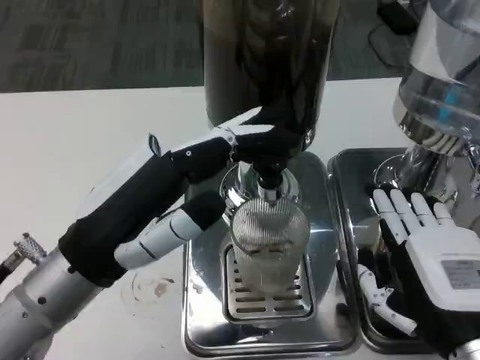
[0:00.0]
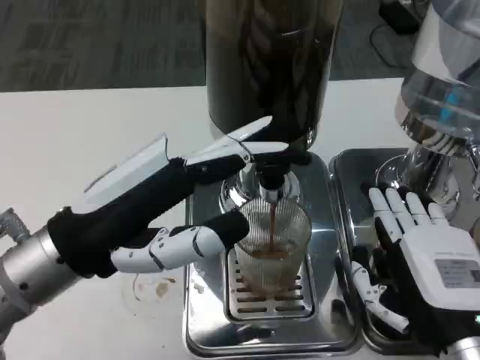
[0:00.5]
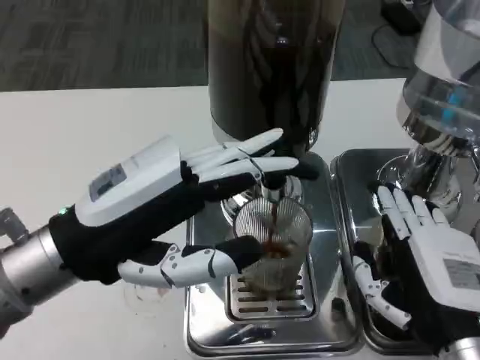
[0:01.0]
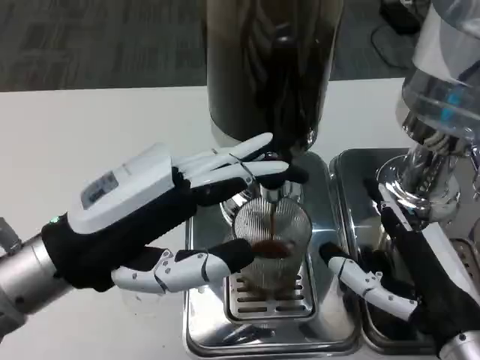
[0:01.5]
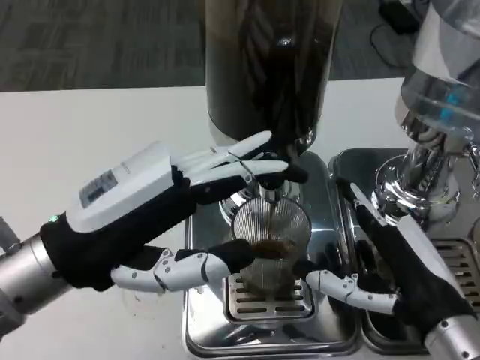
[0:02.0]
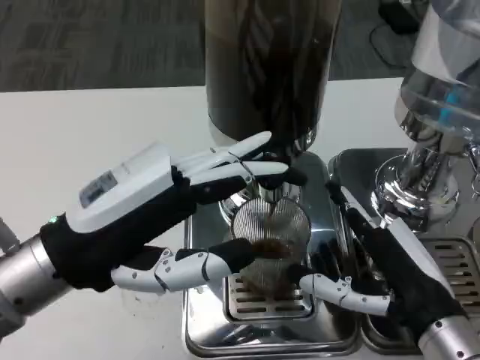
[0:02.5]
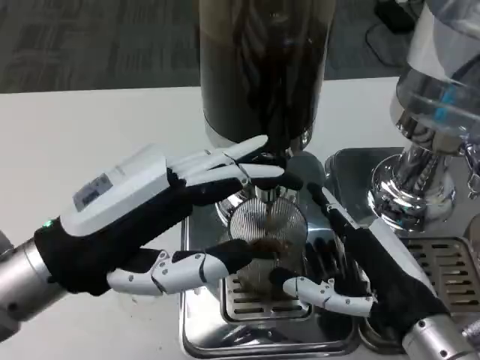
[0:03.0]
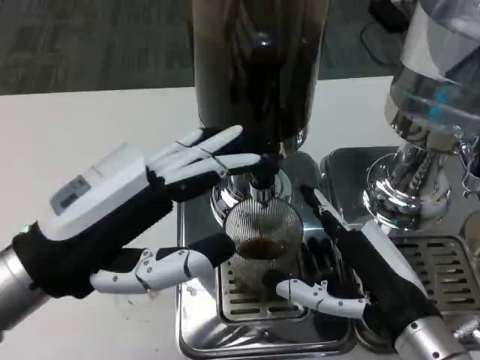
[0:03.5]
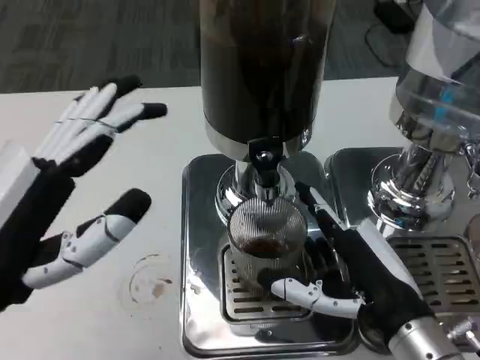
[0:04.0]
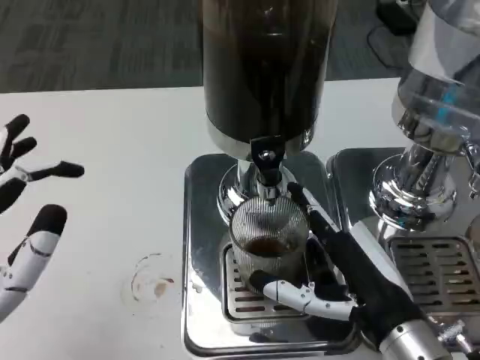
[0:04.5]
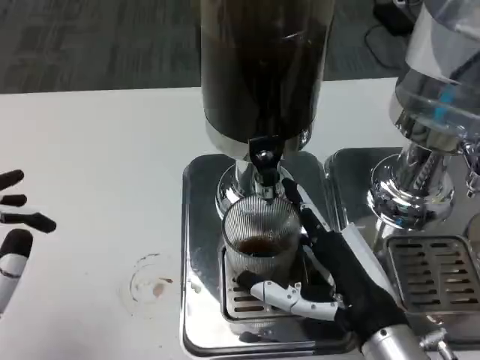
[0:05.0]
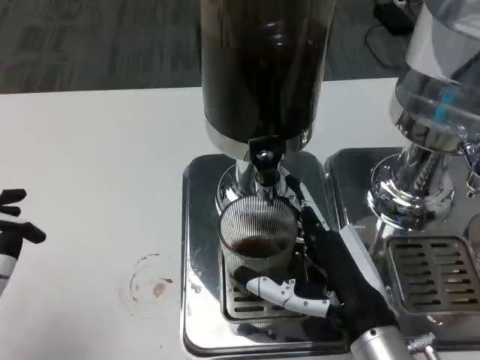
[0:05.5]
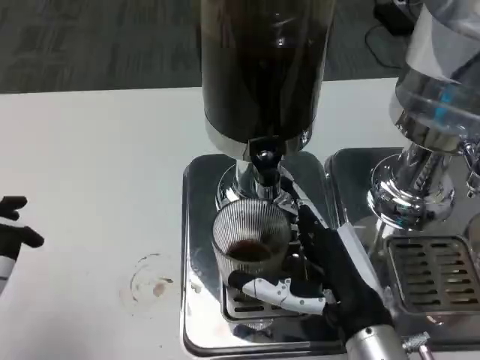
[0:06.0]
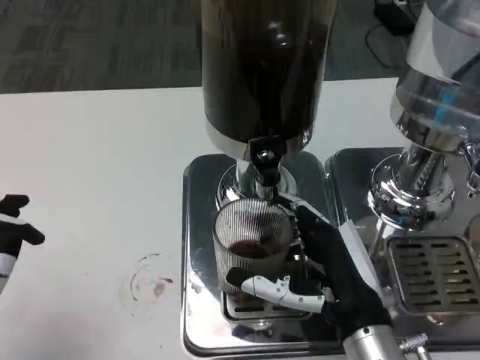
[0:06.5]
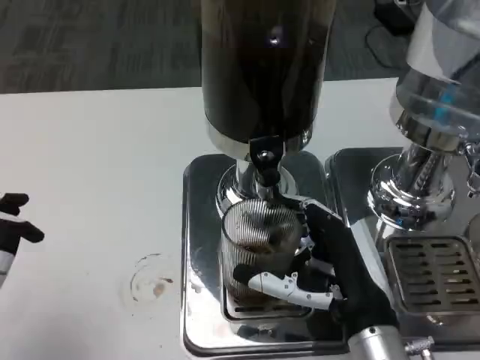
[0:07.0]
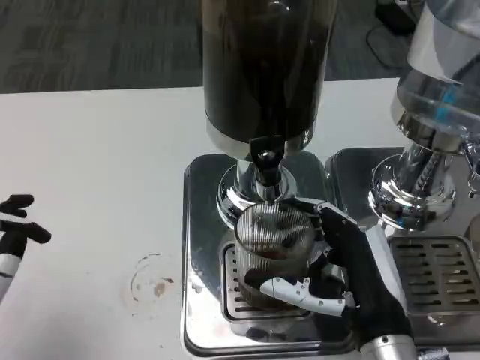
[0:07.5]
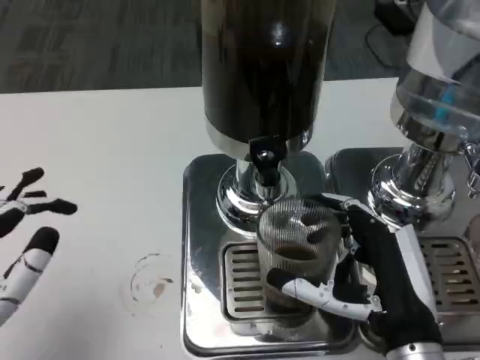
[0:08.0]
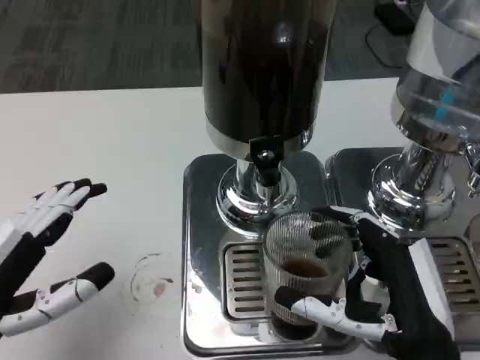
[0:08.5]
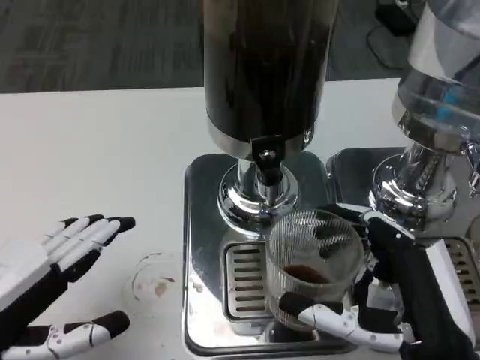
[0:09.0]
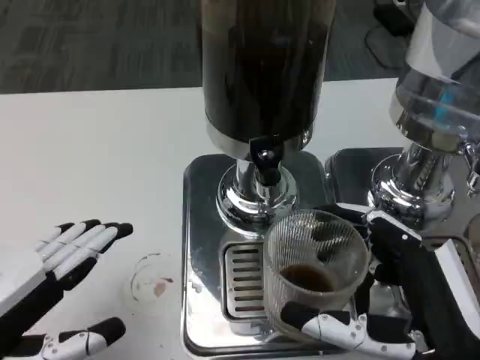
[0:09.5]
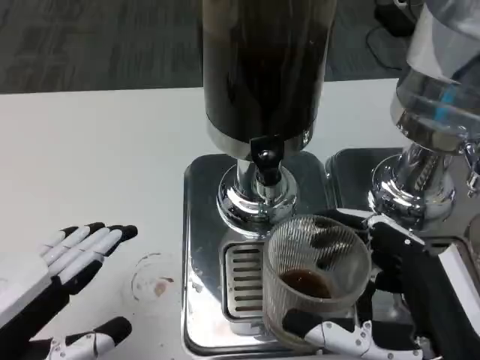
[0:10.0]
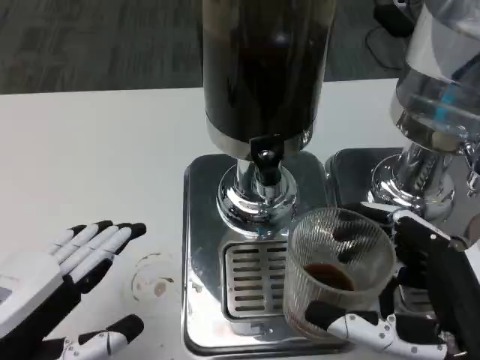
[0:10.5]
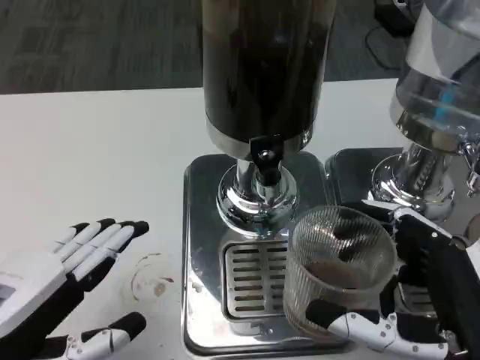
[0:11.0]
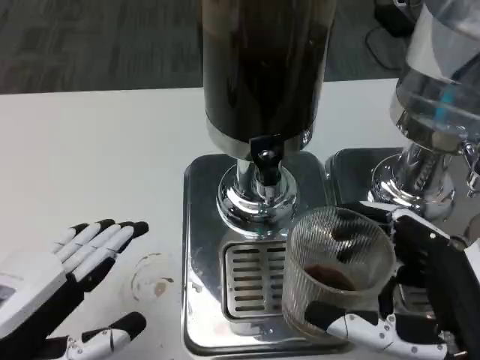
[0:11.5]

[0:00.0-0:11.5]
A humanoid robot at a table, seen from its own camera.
Task of the whole recording: Grasp the cup under the faucet to collect the drink, then remove the cup.
0:02.0 to 0:04.0: The left hand moves backward, about 5 cm.
0:04.0 to 0:06.0: The right hand ends up roughly 5 cm from where it was; the left hand travels downward and backward by some 10 cm.
0:06.0 to 0:07.5: There are only small adjustments of the hands.
0:07.5 to 0:09.5: The left hand changes place by some 5 cm, while the right hand travels backward and upward by some 10 cm.
0:09.5 to 0:11.5: There are only small adjustments of the hands.

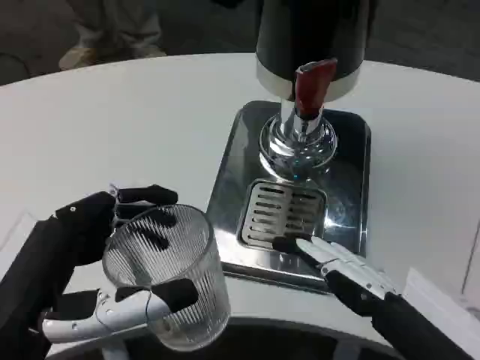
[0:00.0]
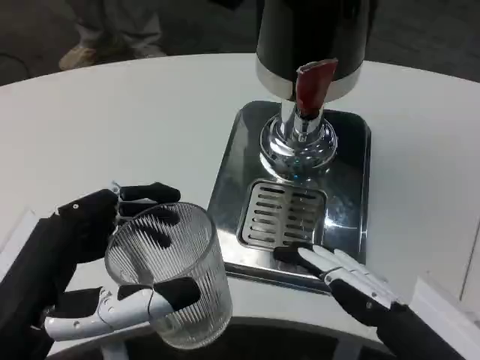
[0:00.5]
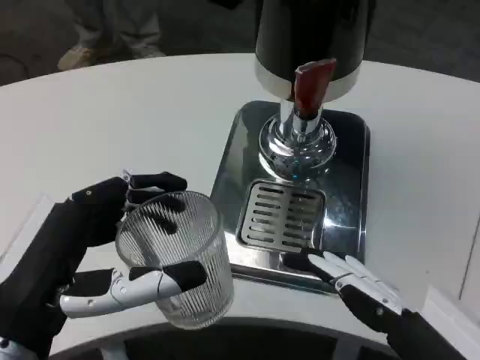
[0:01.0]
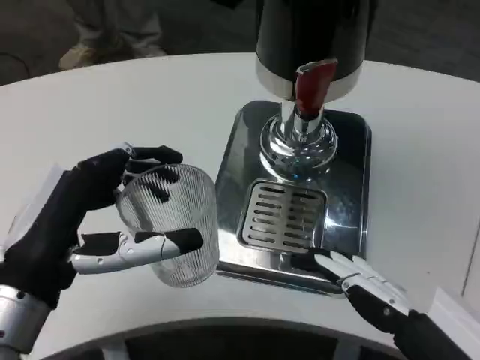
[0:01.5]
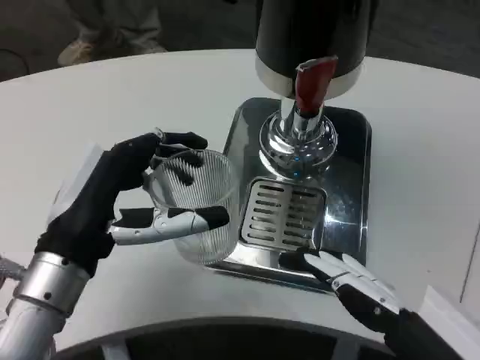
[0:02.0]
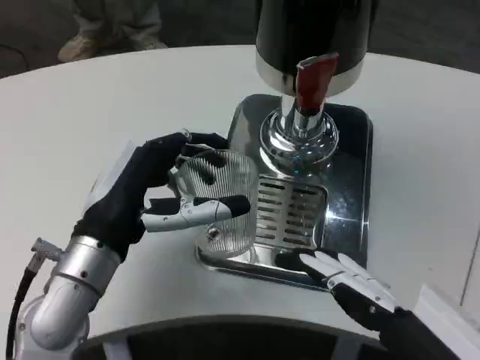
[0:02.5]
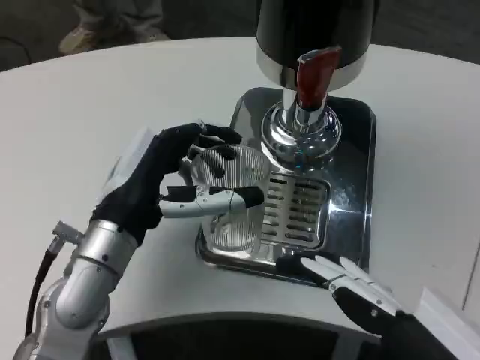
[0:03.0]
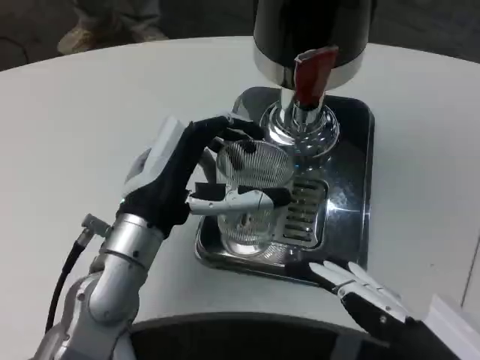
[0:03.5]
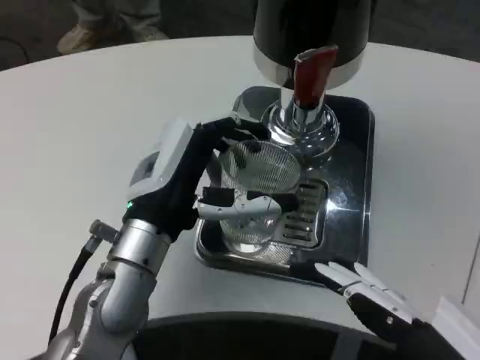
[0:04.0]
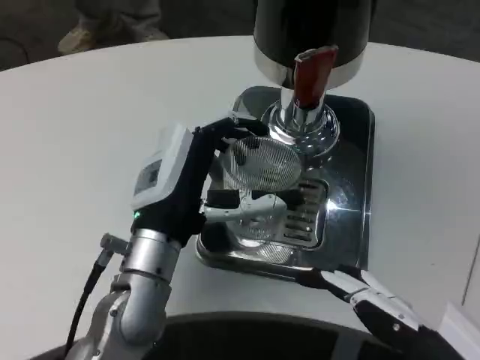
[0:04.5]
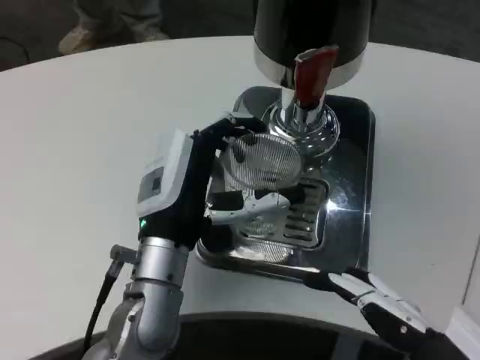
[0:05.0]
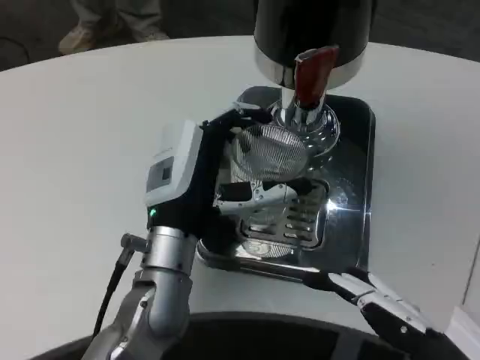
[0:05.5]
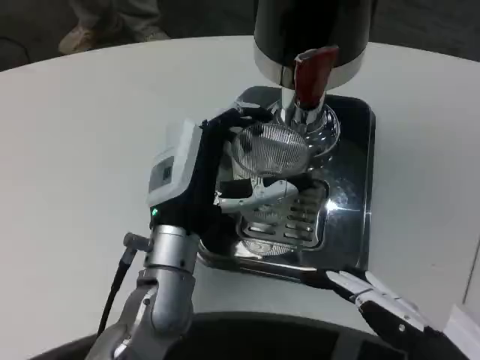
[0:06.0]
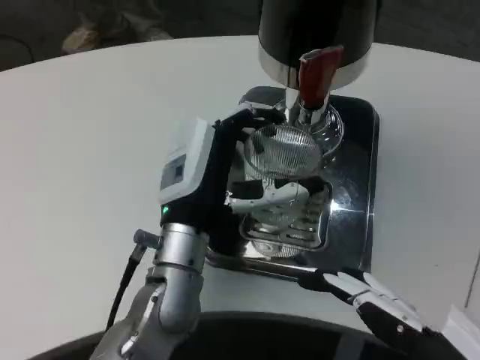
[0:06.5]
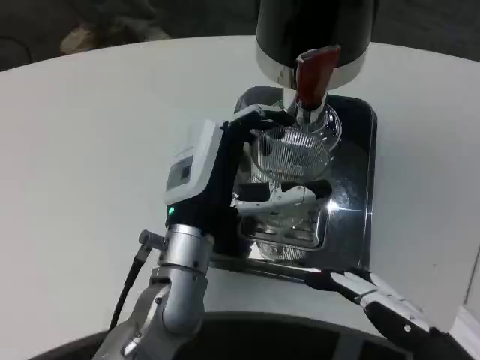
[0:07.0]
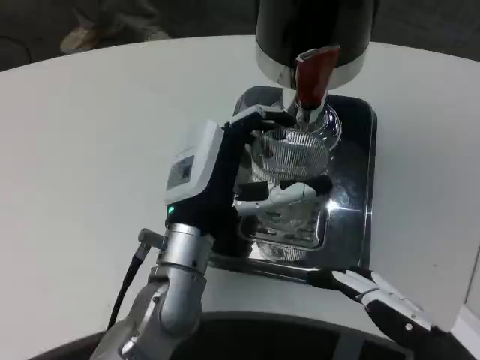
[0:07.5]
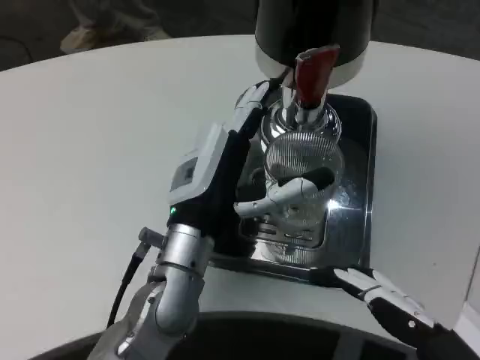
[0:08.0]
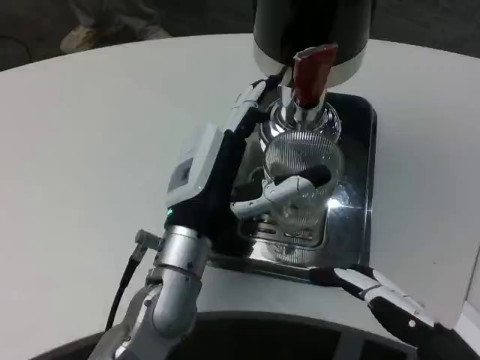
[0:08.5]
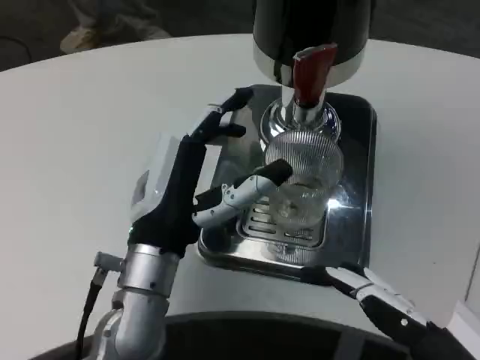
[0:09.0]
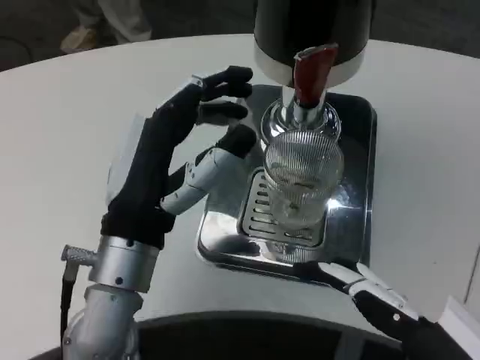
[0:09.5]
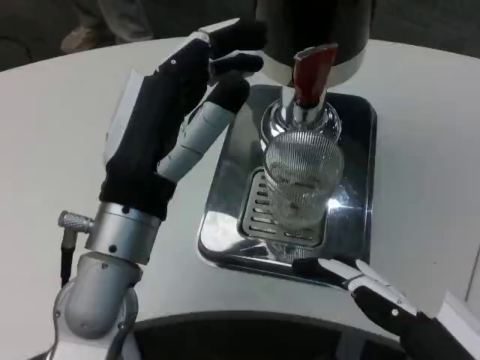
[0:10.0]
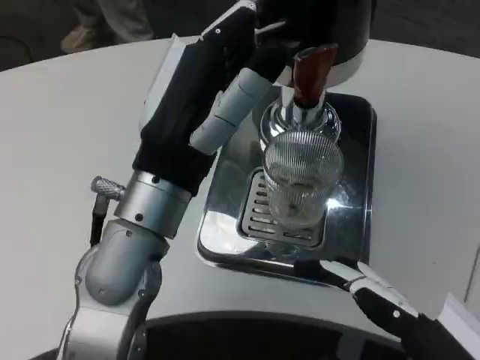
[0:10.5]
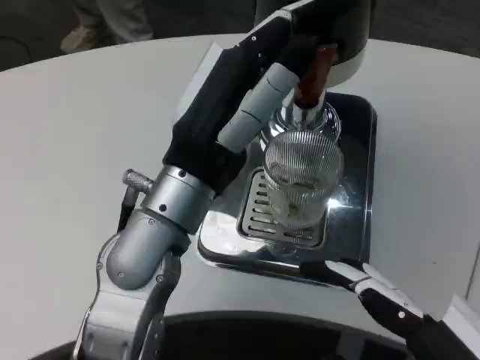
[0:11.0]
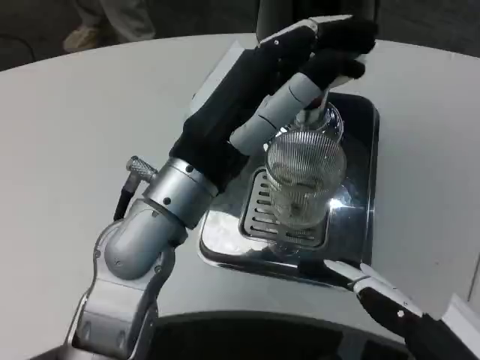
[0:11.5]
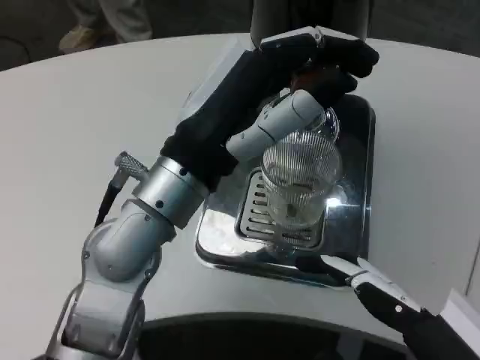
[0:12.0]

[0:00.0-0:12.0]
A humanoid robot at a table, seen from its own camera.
Task of the whole recording: Grasp the cup under the faucet to collect the drink, then remove the cup.
0:00.0 to 0:02.0: The left hand shifts roughly 10 cm forward.
0:02.0 to 0:04.0: The left hand heads to the right, covering approximately 5 cm.
0:04.0 to 0:08.0: The hands make only small movements.
0:08.0 to 0:10.0: The left hand is displaced upward and backward by about 10 cm.

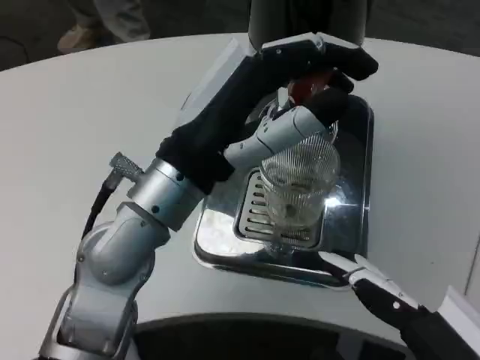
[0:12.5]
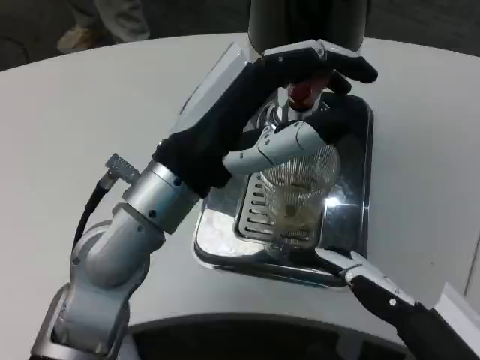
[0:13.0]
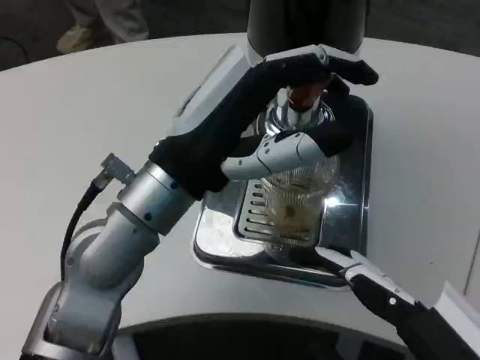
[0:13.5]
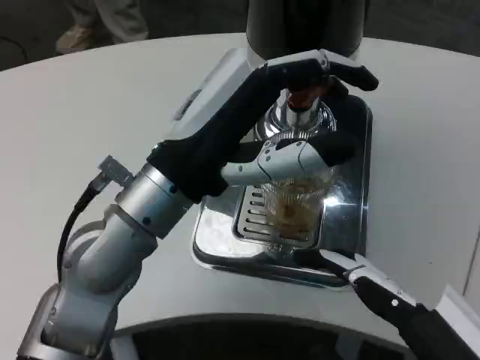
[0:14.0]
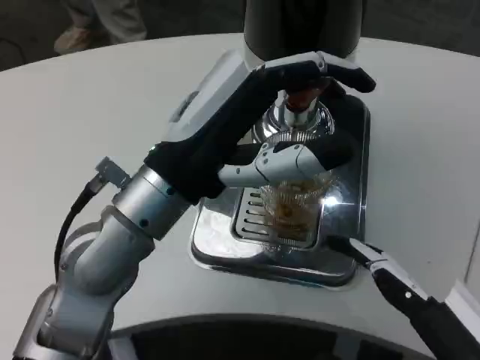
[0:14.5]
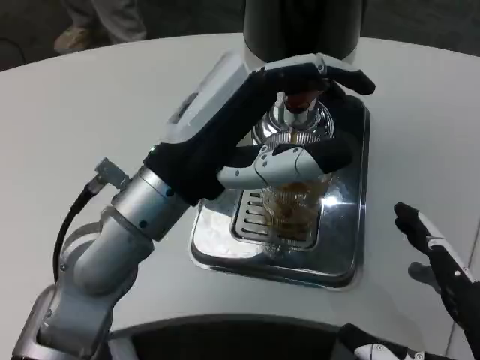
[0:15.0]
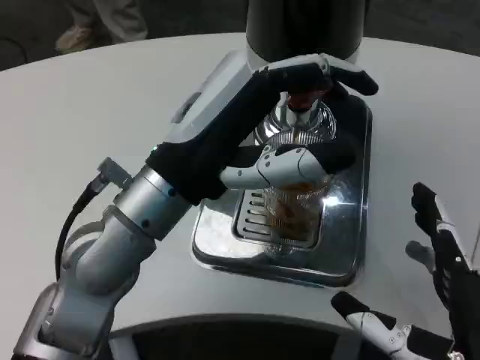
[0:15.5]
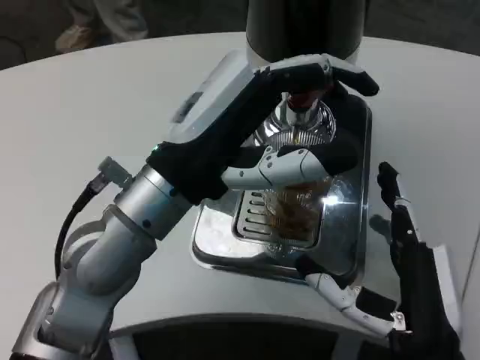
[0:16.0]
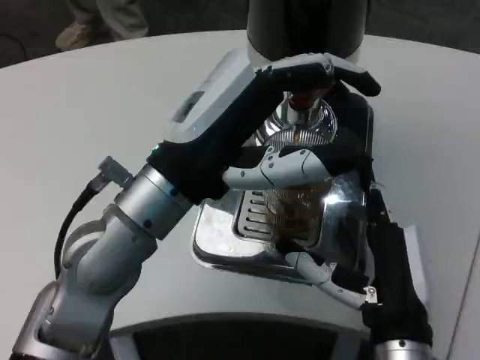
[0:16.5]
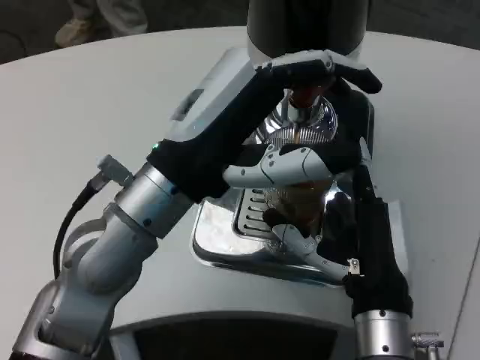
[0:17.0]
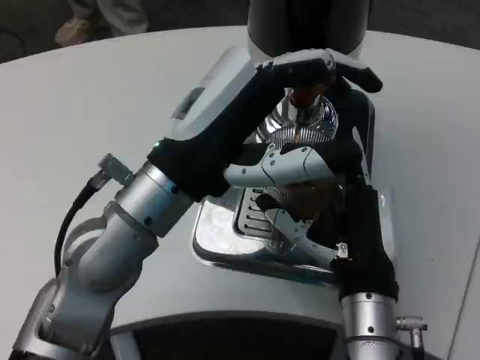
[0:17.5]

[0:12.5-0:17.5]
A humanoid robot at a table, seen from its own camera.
Task of the whole recording: Grasp the cup under the faucet to collect the drink, then remove the cup.
0:15.0 to 0:17.5: The right hand shifts about 20 cm forward and to the left.
